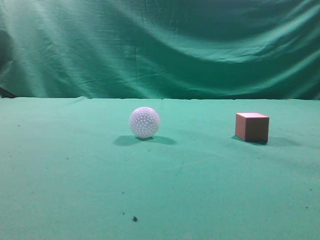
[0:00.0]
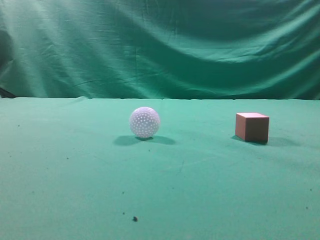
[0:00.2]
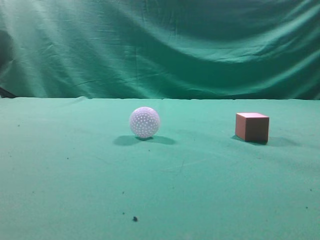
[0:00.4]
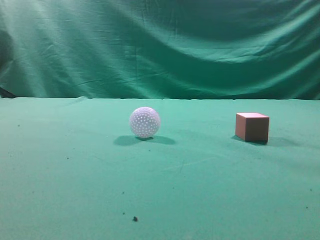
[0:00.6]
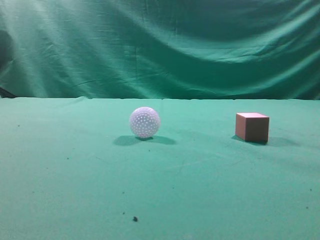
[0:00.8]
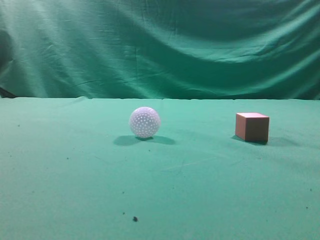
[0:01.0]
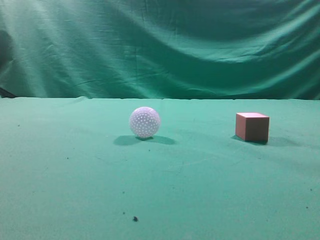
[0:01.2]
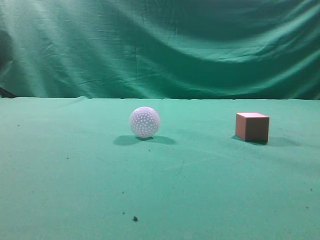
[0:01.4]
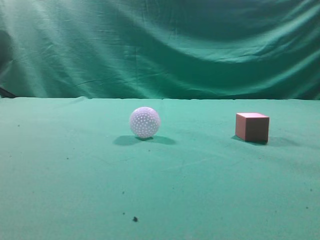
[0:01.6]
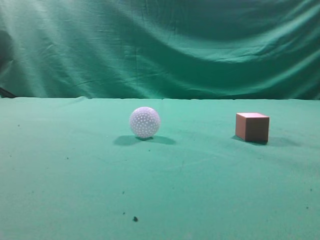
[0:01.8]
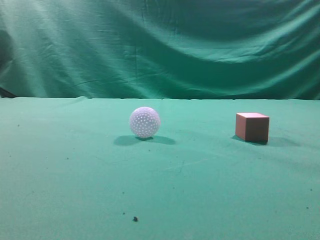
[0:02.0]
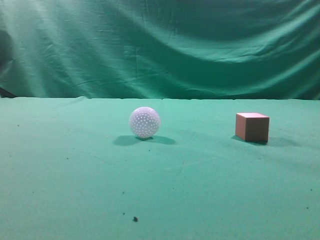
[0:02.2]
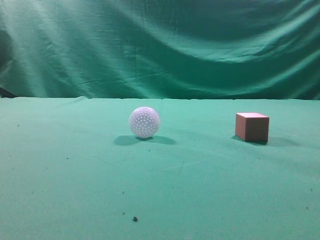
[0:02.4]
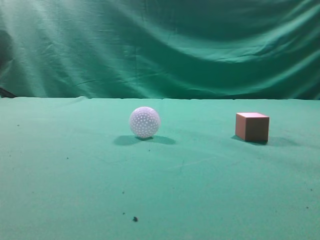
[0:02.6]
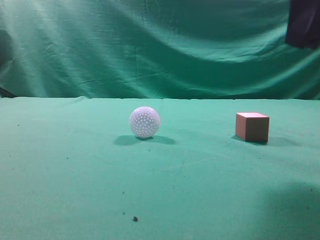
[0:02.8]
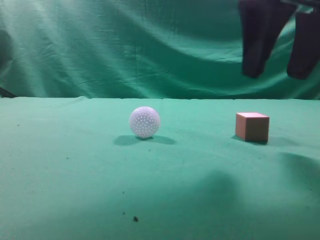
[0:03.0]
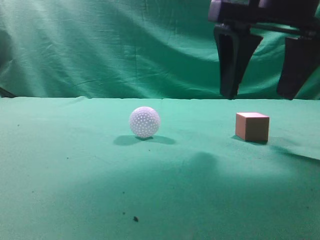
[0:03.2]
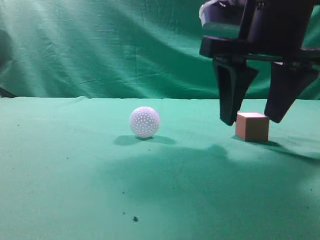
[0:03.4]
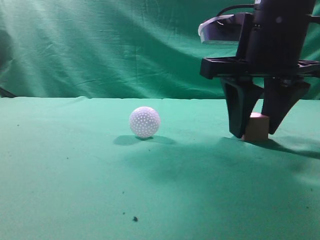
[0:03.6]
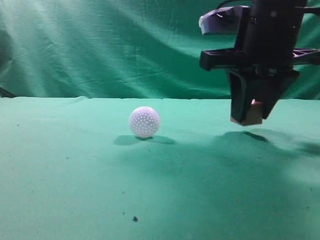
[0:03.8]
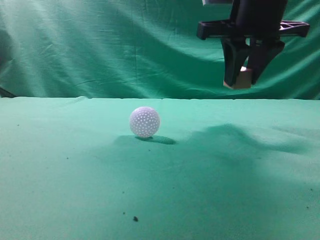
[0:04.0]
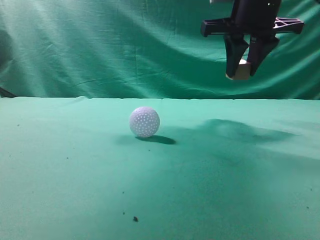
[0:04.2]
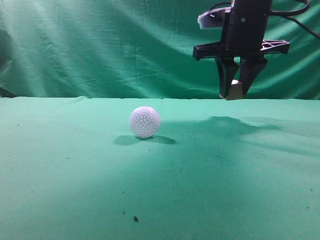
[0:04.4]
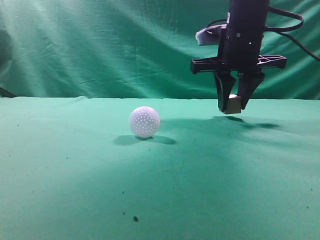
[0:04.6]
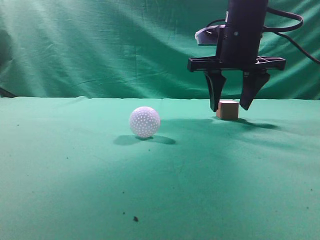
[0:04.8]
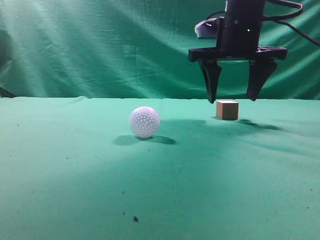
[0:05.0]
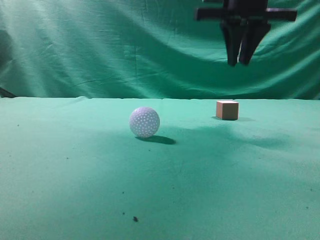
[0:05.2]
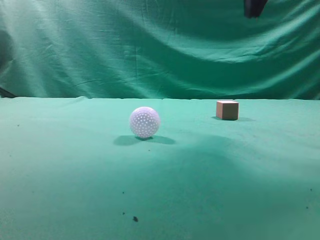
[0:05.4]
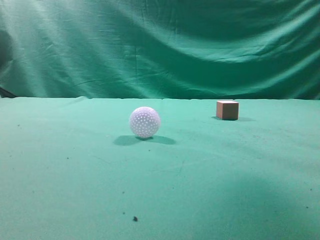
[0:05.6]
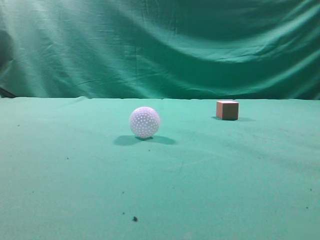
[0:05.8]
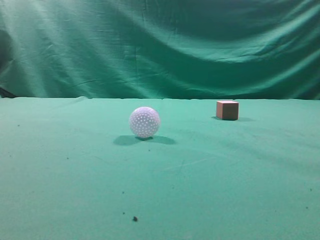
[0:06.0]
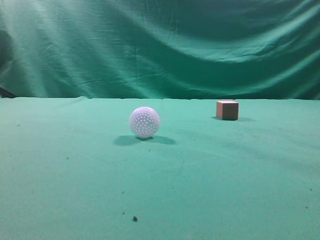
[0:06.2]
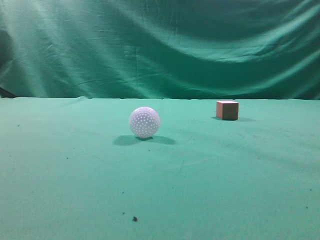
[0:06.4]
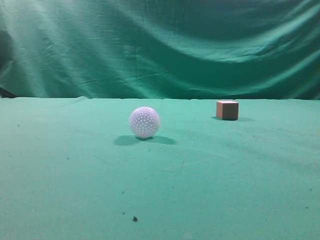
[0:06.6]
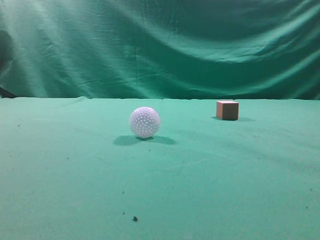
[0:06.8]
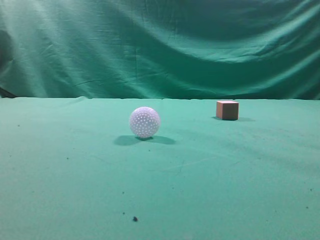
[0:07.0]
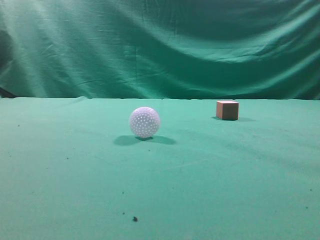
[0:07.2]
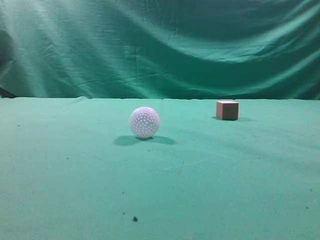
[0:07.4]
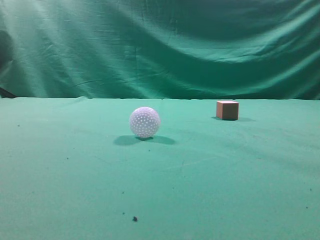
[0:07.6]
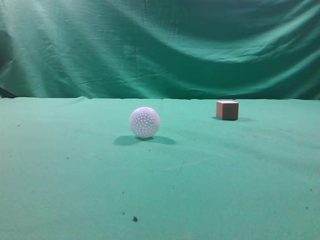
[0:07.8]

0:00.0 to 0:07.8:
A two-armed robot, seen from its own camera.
Task of the whole recording: pick up the cube block and place it in another position on the table.
Step, 0:00.0 to 0:03.6: Pick up the small cube.
Step, 0:04.0 to 0:04.8: Place the small cube on the ahead of the table.
0:01.6 to 0:03.2: The right gripper moves forward, to the left and downward, some 30 cm, and opens its fingers.
0:03.2 to 0:04.6: The right gripper travels forward by about 15 cm, and closes its fingers.
0:04.6 to 0:06.2: The right gripper travels backward and upward by roughly 35 cm, and closes its fingers.
